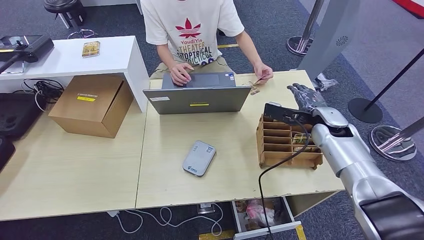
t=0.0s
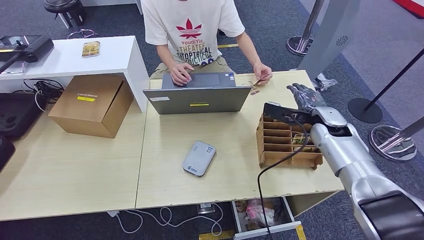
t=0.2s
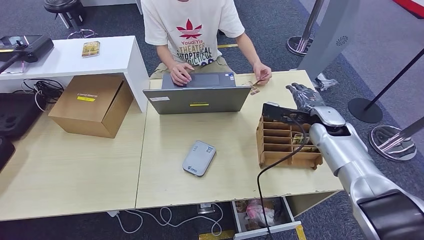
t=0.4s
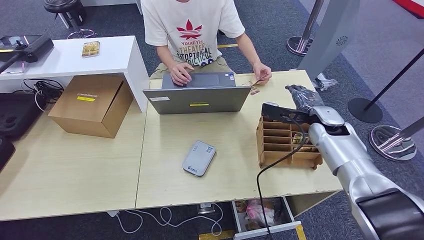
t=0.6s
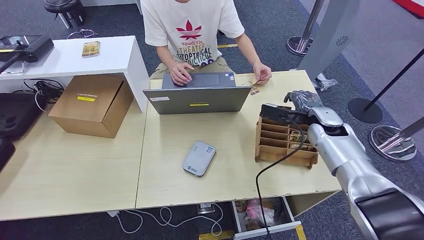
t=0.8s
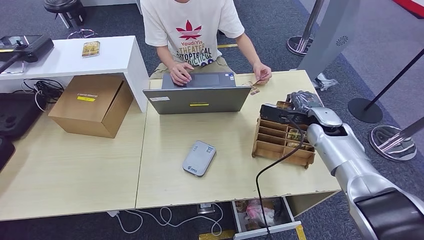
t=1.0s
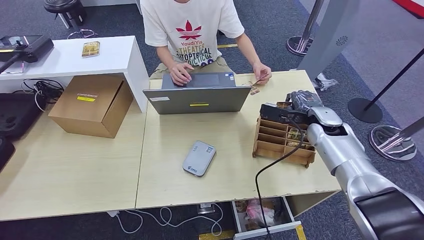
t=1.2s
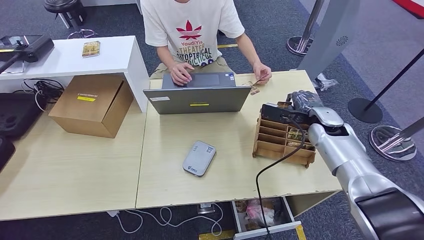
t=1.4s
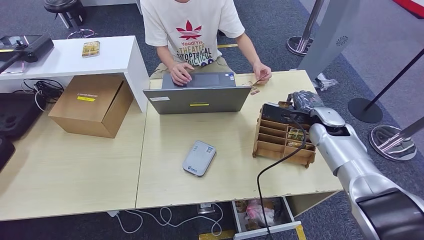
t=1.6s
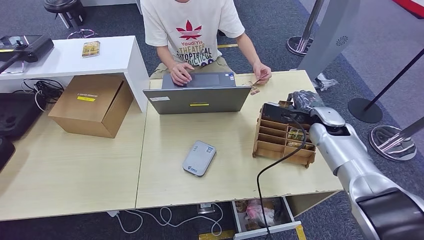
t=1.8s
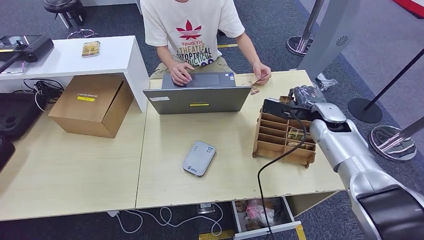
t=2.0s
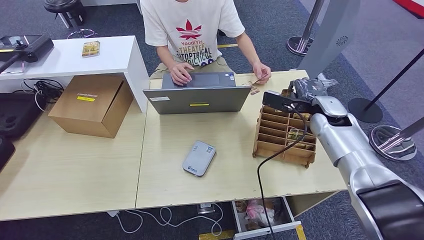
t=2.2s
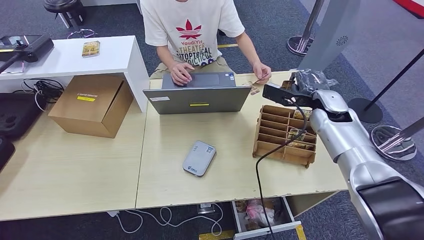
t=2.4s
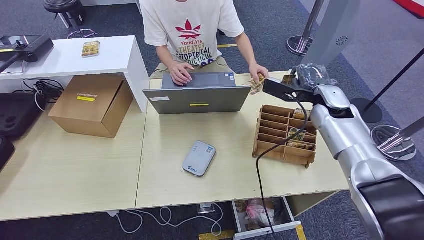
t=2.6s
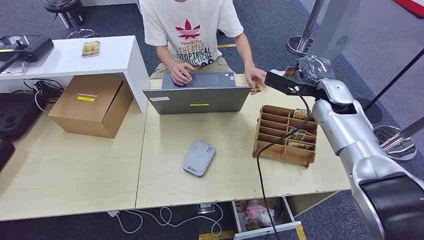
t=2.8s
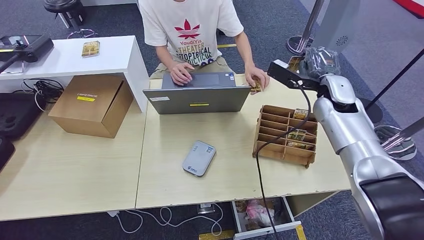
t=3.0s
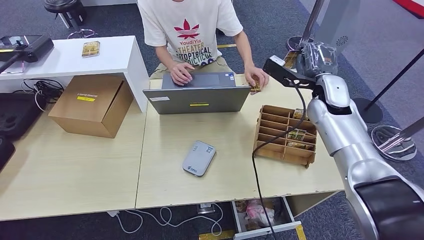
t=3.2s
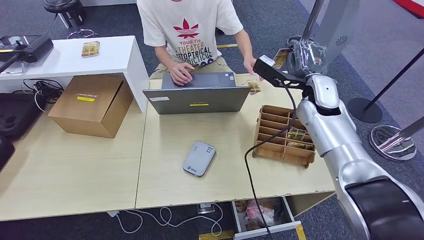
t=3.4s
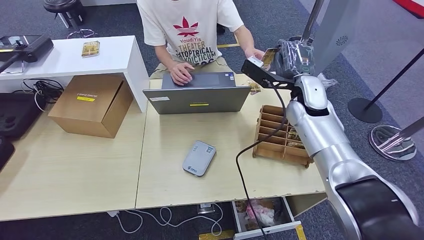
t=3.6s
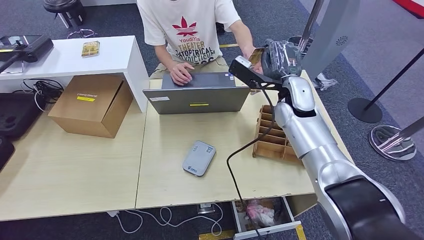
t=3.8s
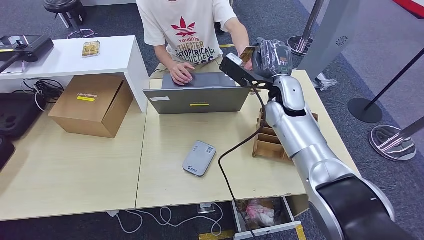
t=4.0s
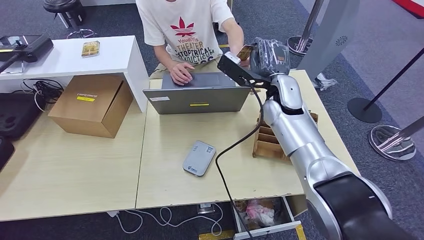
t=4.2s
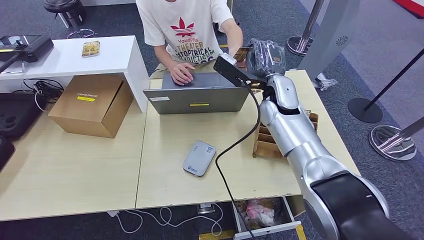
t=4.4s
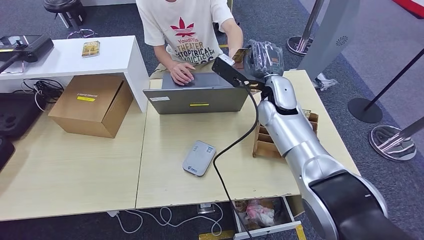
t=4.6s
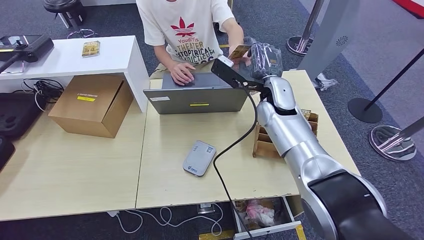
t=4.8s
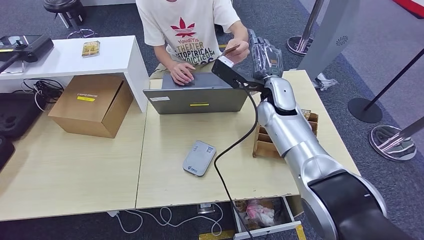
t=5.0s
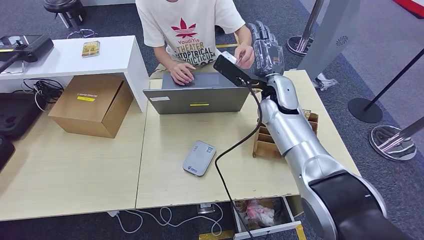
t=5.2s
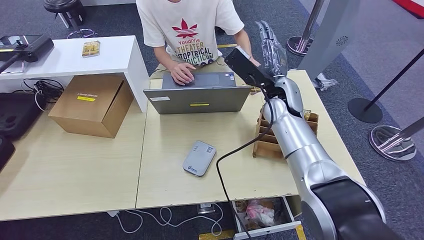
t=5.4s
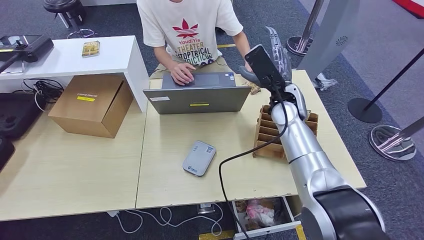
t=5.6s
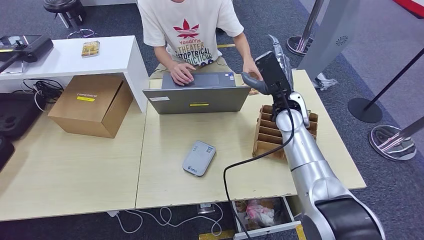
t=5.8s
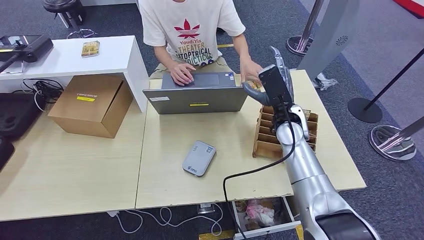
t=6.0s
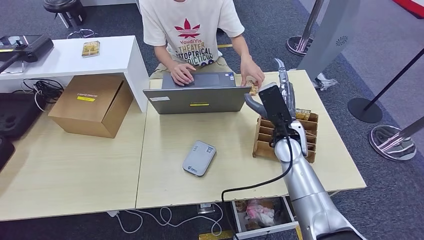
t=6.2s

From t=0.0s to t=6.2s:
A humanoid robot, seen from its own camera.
Step, from t=0.0s to t=2.6s: Pick up the room key from the key card box.
Step, from t=3.0s to t=6.2s: Hand the room key to the person.
From t=0.0s to t=1.6s: The two hands keep their place.
From t=1.6s to t=3.2s: The right hand shifts roughly 10 cm upward.
From t=3.2s to t=4.6s: The right hand travels to the left by about 15 cm.
From t=4.6s to t=6.2s: The right hand travels downward and backward by approximately 10 cm.
